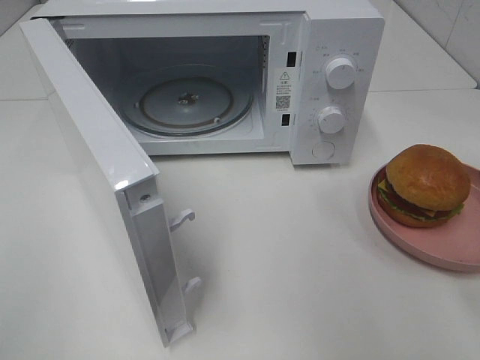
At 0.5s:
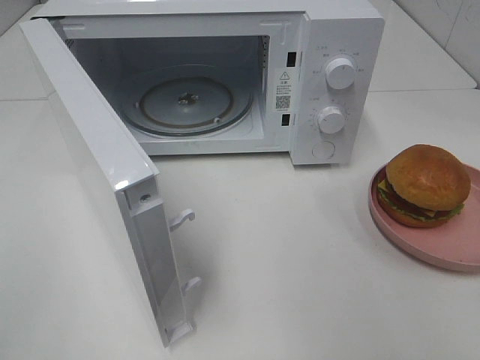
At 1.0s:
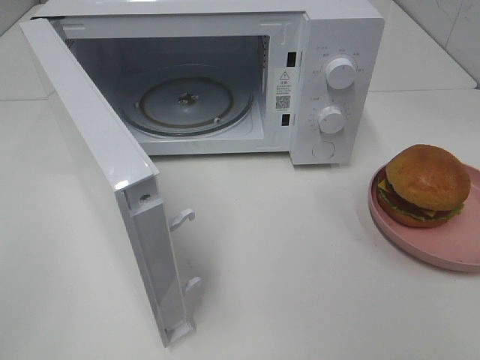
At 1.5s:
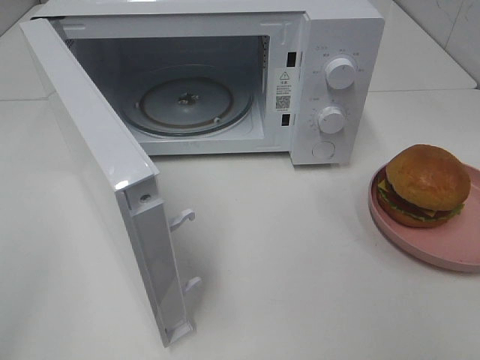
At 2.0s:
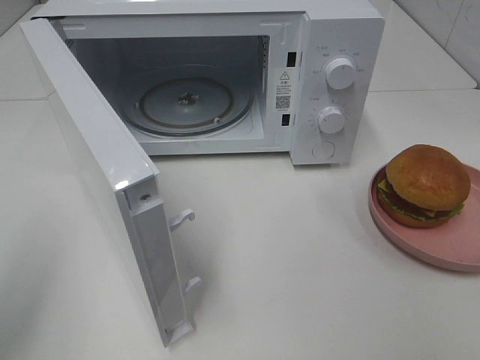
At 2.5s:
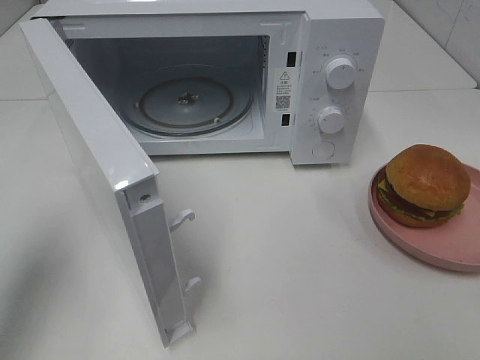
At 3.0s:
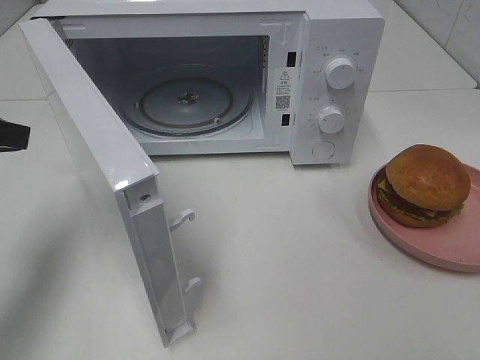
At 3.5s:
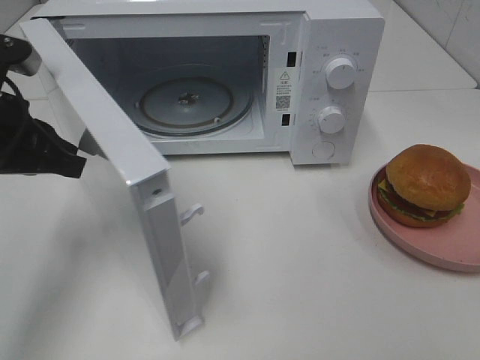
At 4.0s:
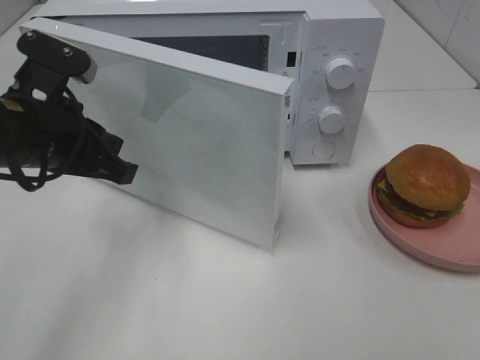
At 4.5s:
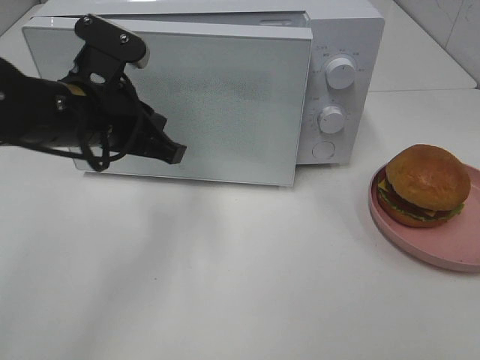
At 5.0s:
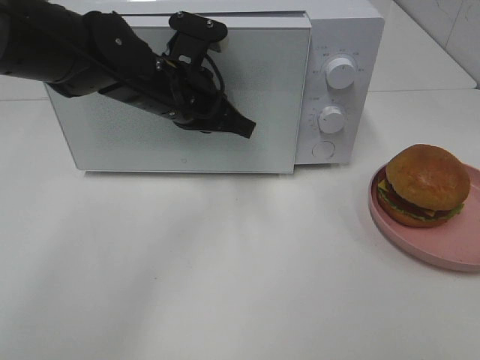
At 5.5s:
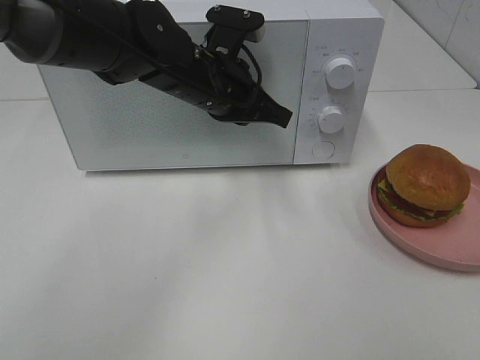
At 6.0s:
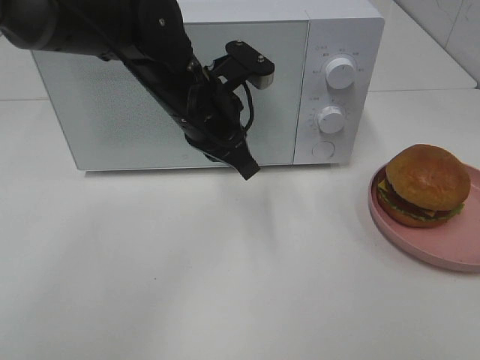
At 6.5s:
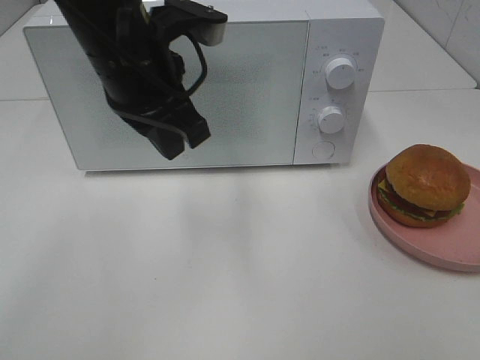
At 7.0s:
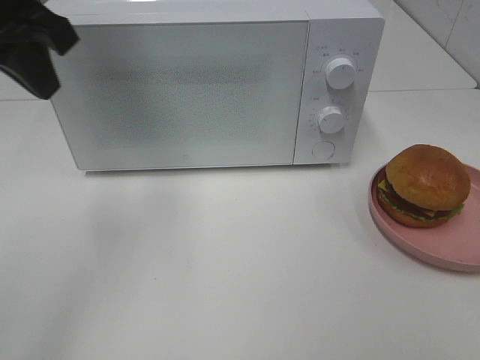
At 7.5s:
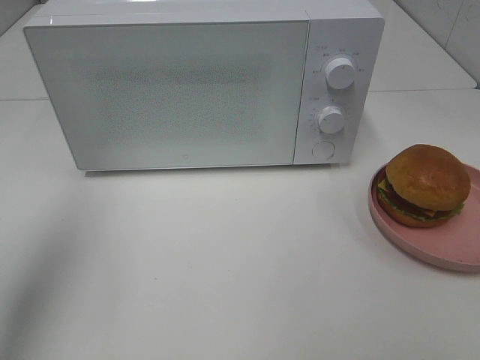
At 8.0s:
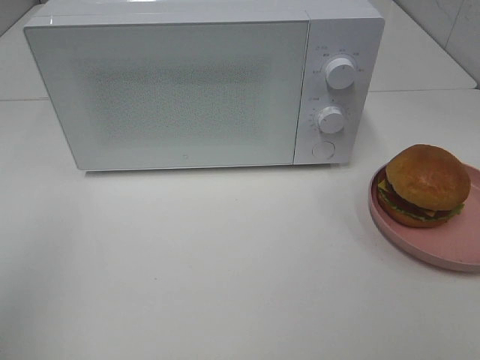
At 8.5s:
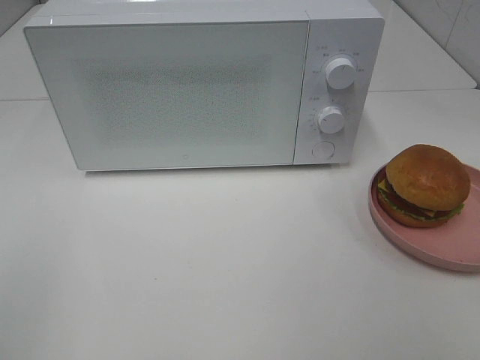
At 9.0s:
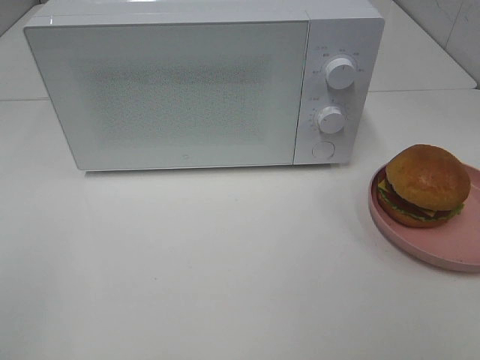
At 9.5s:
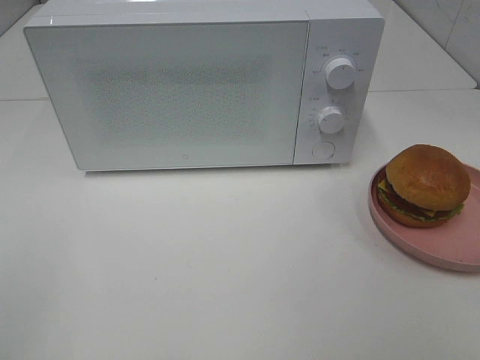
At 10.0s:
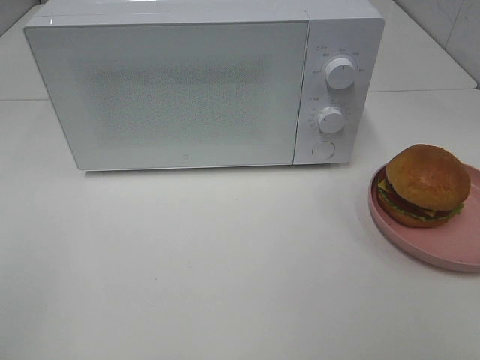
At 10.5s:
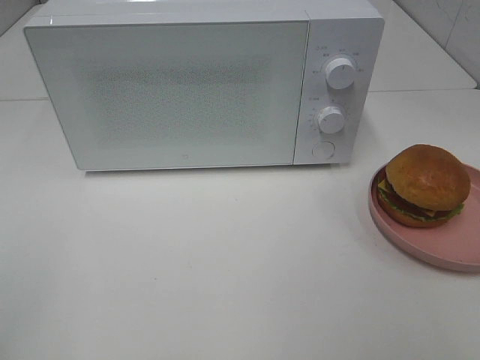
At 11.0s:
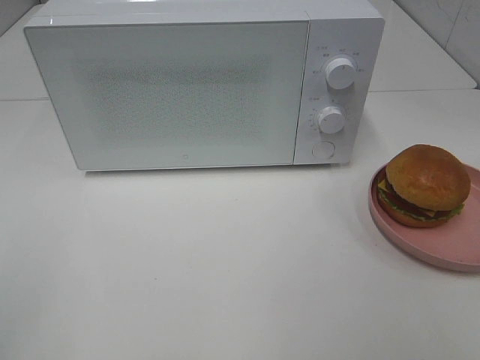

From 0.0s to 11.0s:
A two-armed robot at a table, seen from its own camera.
Task of the whole recording: Heat the burger.
Step, from 0.0s to 5.5s: Left hand: close the microwave door.
From 0.0s to 2.0s: The left gripper heads forward, covering approximately 10 cm.
From 2.0s to 3.5s: The left gripper heads forward, downward and to the right, covering roughly 20 cm.
From 3.5s to 5.5s: The left gripper shifts some 20 cm to the right and forward.
From 5.5s to 7.5s: The left gripper travels to the left, backward and upward by about 35 cm.
From 7.5s to 9.0s: The left gripper travels backward by about 20 cm.

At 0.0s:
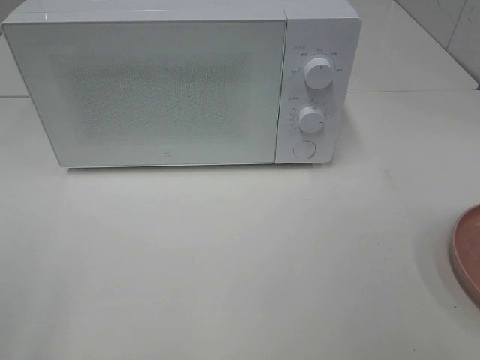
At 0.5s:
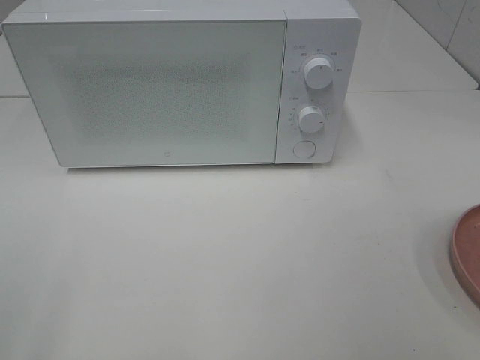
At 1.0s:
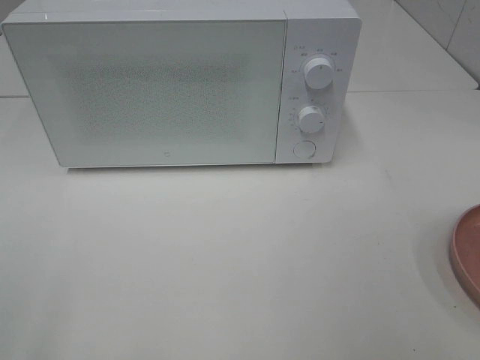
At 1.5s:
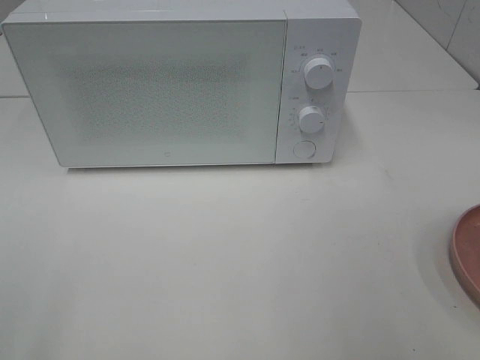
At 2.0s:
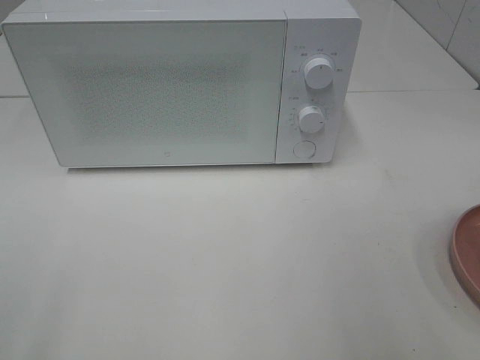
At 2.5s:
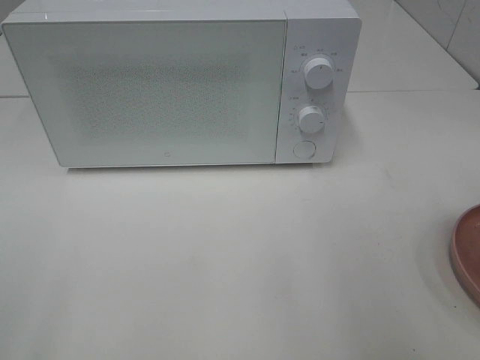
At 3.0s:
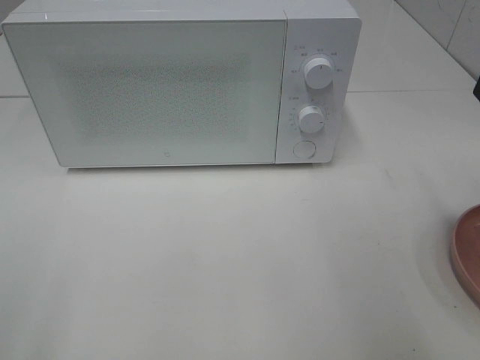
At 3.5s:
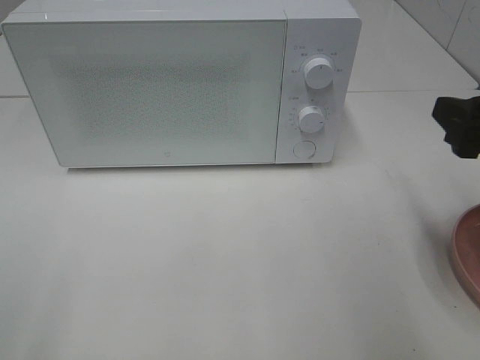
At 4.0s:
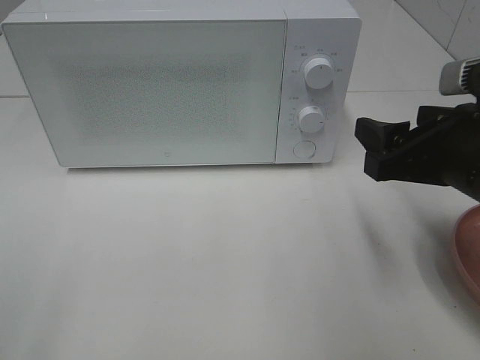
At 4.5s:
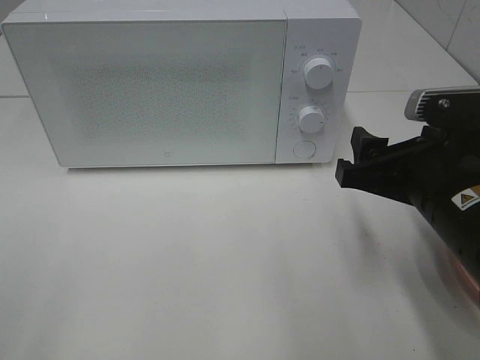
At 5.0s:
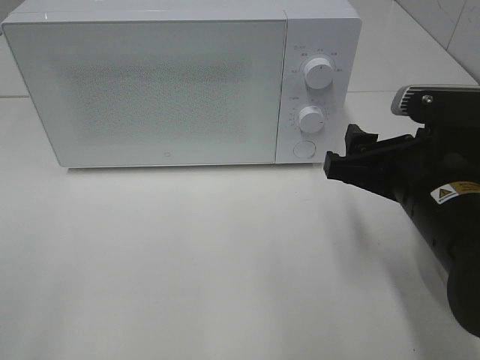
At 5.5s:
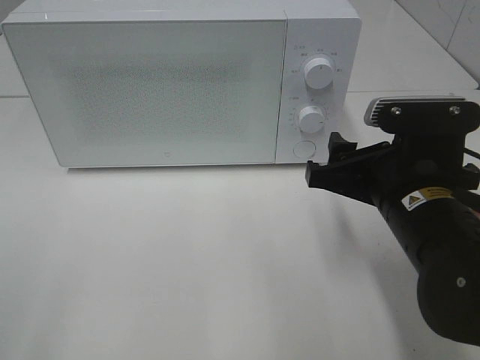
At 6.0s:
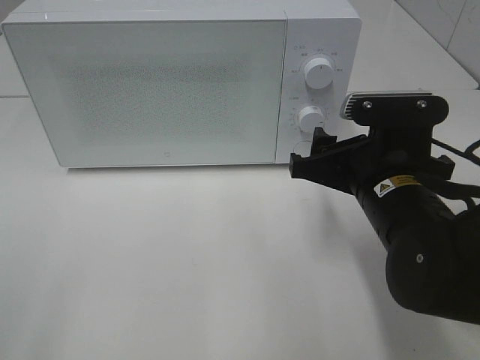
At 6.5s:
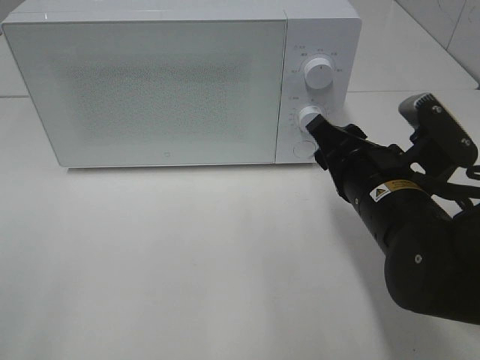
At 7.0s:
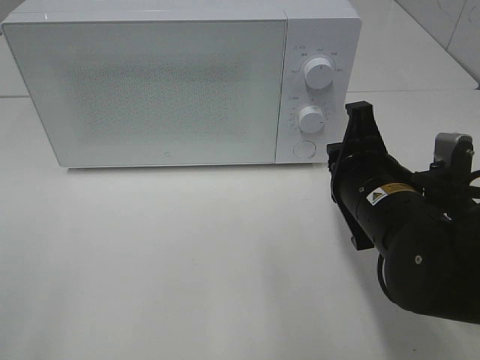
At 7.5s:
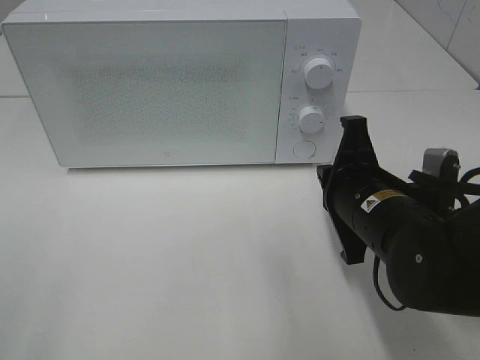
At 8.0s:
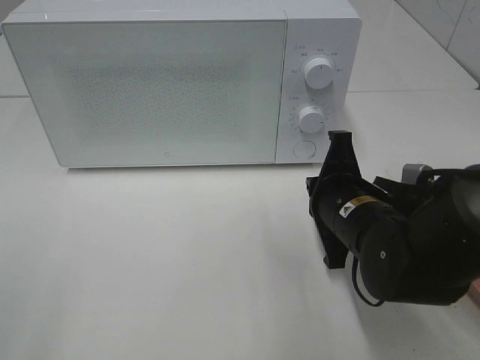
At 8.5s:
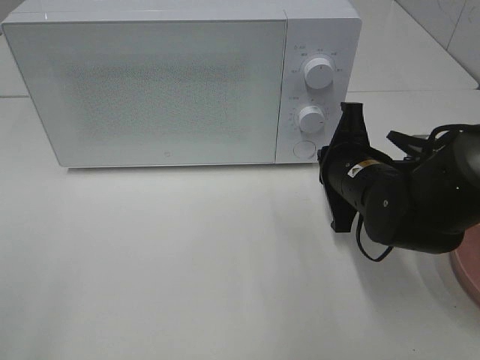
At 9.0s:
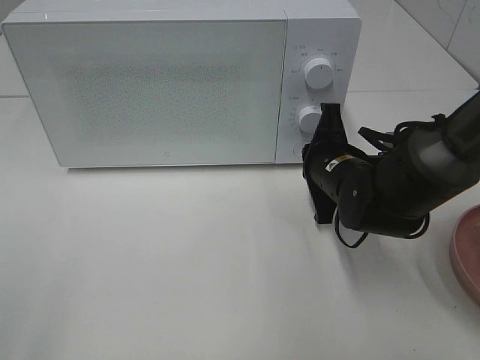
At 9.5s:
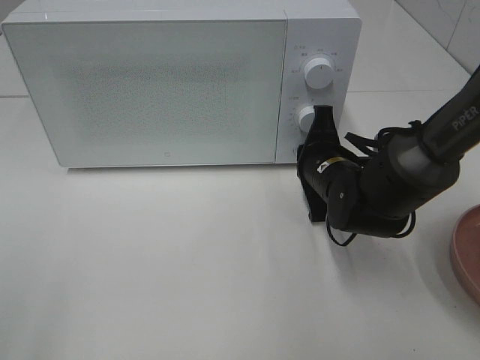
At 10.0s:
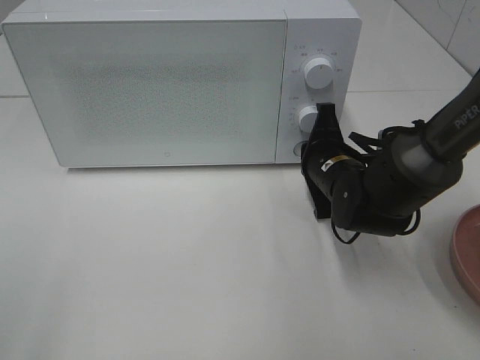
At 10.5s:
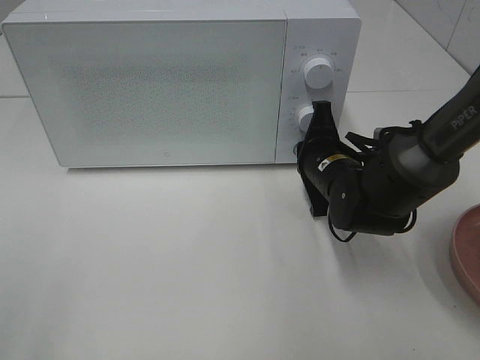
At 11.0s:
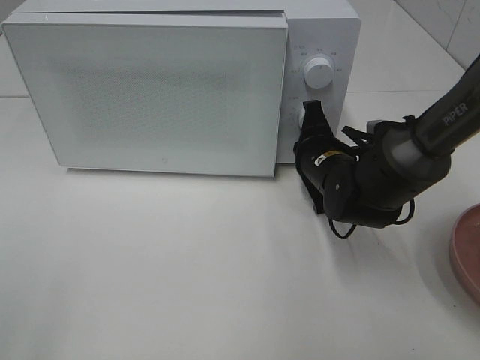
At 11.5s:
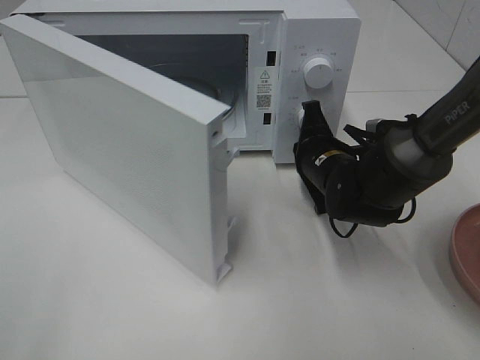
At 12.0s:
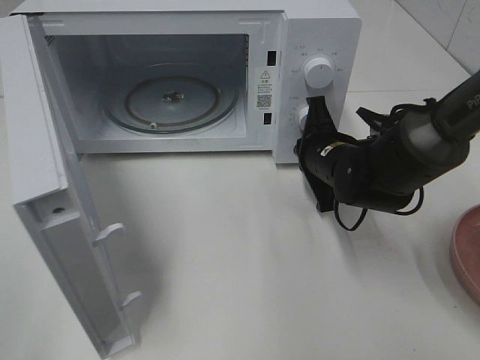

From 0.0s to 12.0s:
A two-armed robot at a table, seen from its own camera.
Task of the whole recording: Heat the burger.
From 2.0s to 4.0s: The right gripper travels downward, forward and to the left by about 15 cm.
From 4.0s to 6.0s: The right gripper goes roughly 10 cm to the left and downward.
From 6.0s to 8.0s: The right gripper is displaced downward by roughly 5 cm, and closes up.
From 8.0s to 10.0s: The right gripper is displaced forward by about 10 cm.

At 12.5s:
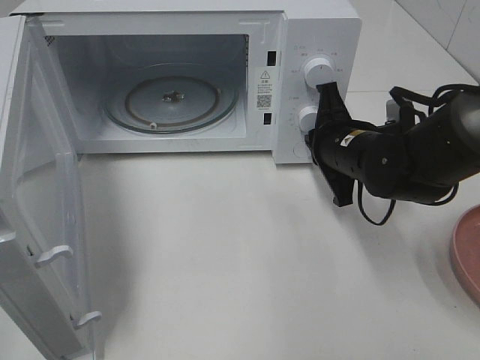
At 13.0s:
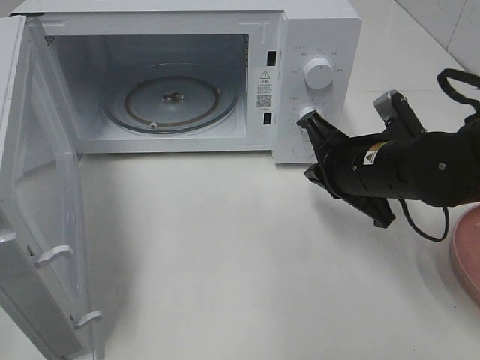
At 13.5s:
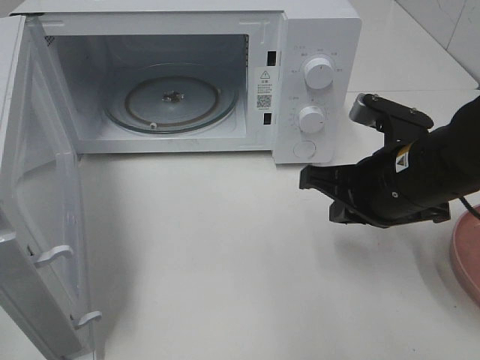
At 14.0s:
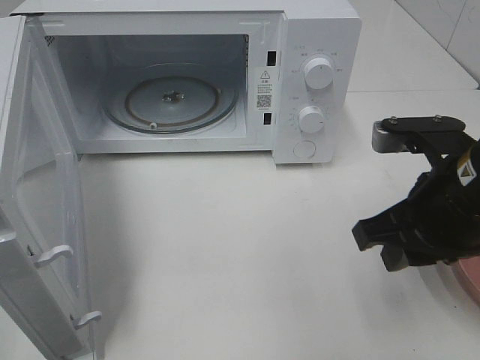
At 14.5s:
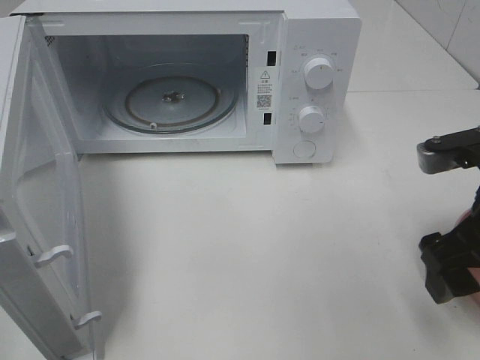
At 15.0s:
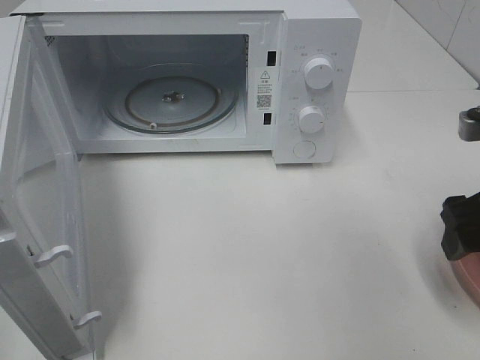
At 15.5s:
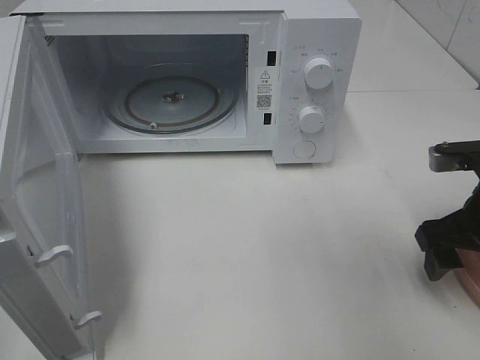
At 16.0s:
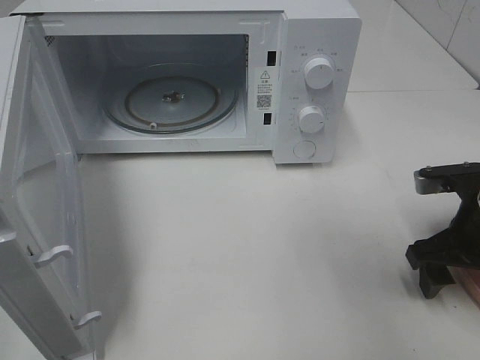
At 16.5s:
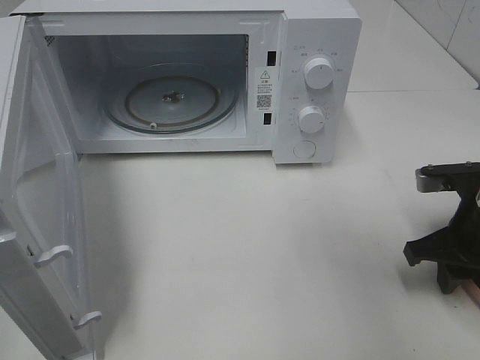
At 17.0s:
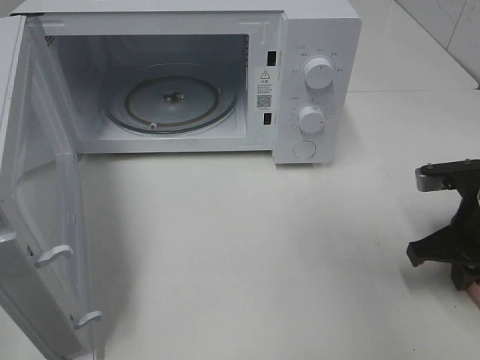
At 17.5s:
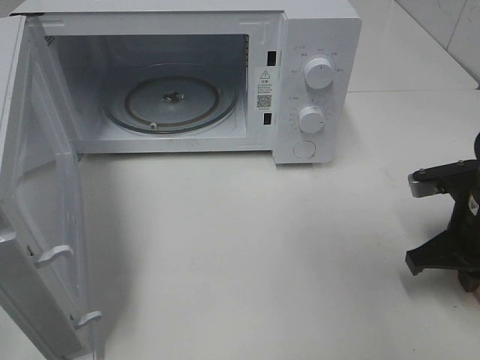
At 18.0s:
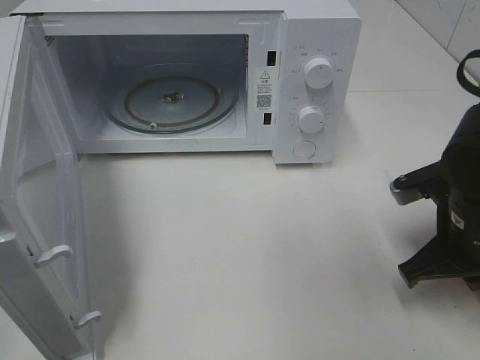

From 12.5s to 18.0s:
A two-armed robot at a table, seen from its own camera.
Task of the whole recording: Heat the burger.
Step, from 13.0s to 16.5s: Right hand: grab the plate with the hamburger.
From 12.5s to 14.5s: The right gripper heads backward, to the right and upward, covering approximately 20 cm, and opens up.
From 14.5s to 16.0s: The right gripper heads downward and forward, covering some 10 cm.
From 16.0s to 18.0s: The right gripper closes its fingers.
